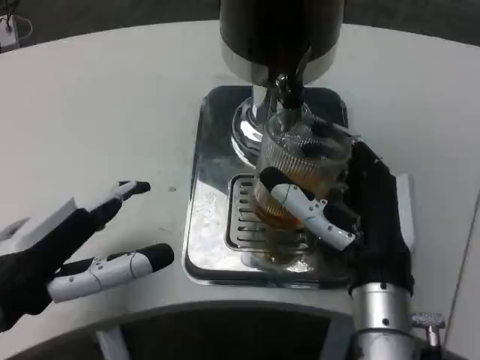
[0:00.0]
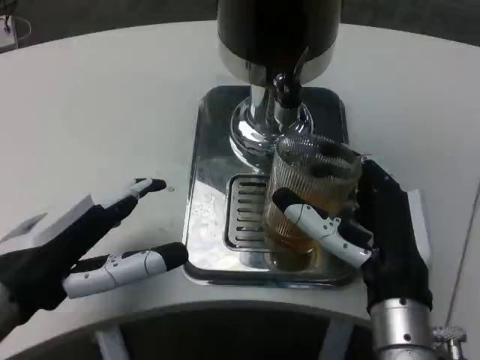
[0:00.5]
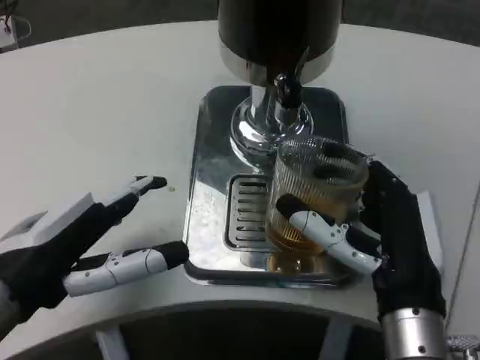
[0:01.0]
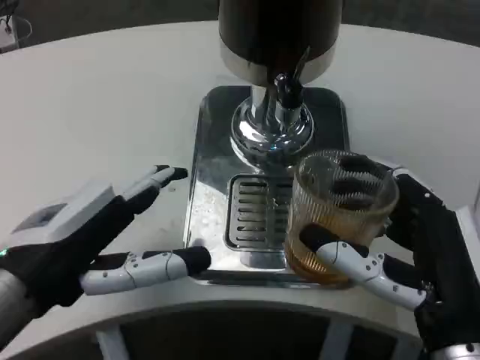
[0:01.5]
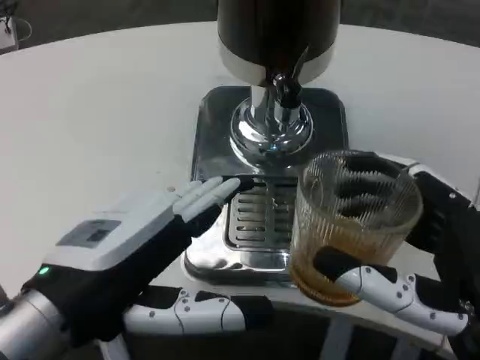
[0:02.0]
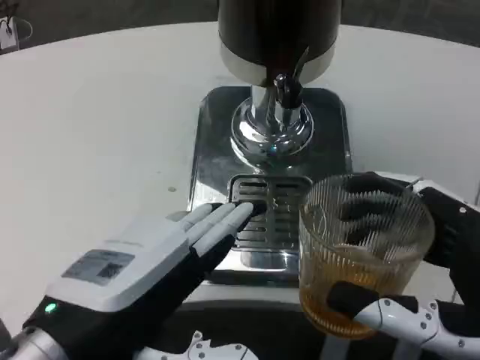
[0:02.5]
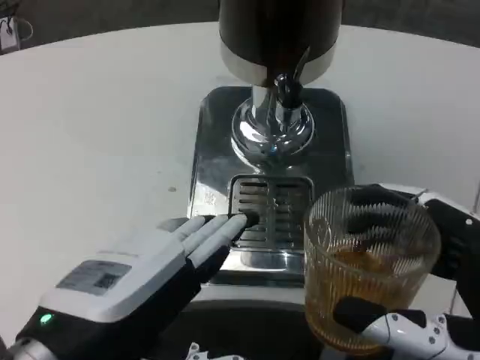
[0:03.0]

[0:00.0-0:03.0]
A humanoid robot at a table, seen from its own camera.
Task of the whole recording: Grasp the cup under the faucet to collect the drink, then remove the cup.
0:00.0 to 0:01.5: The right hand goes some 10 cm backward and to the right.
0:01.5 to 0:03.0: Both hands move backward, roughly 5 cm.

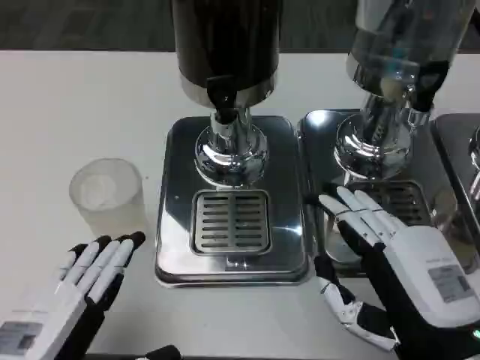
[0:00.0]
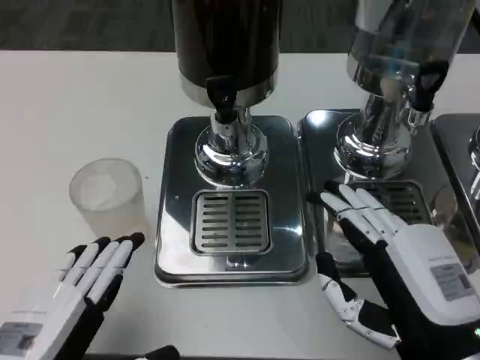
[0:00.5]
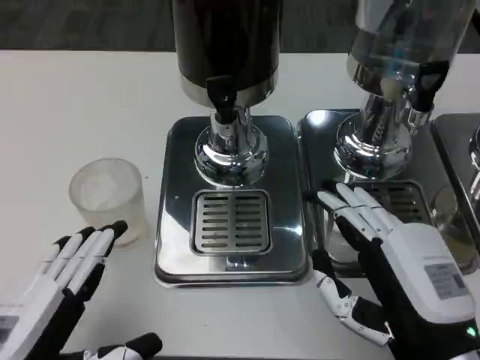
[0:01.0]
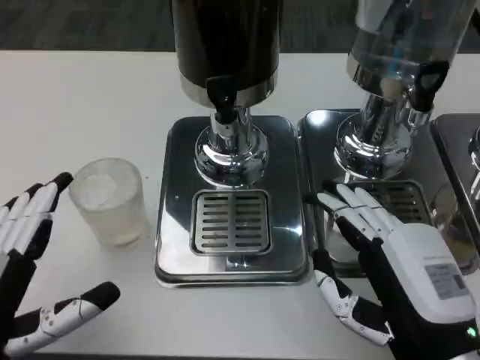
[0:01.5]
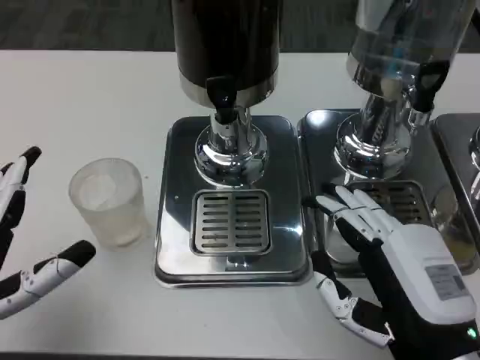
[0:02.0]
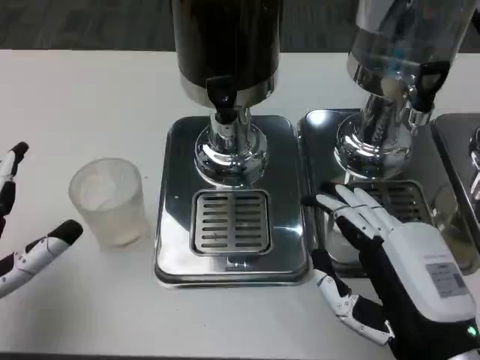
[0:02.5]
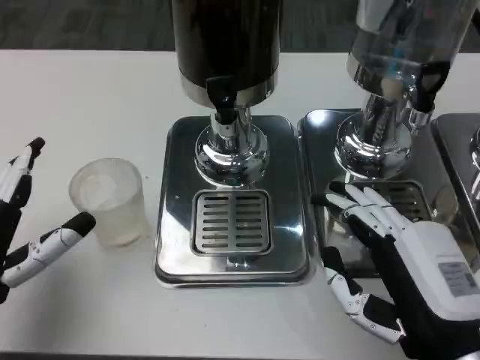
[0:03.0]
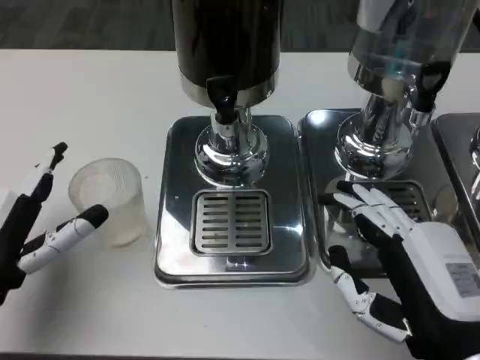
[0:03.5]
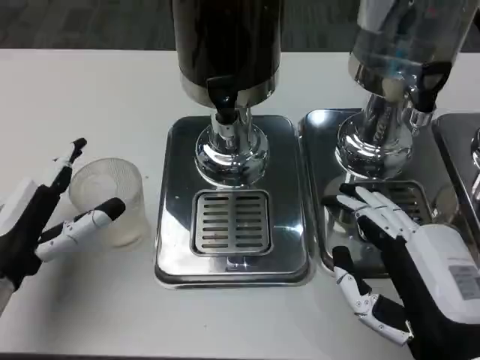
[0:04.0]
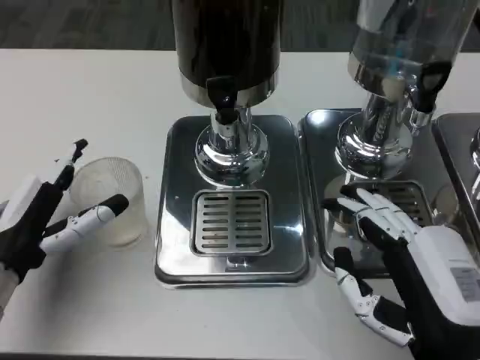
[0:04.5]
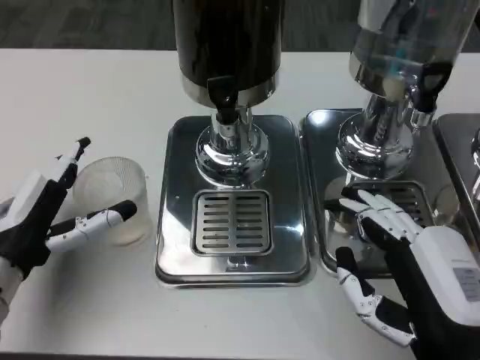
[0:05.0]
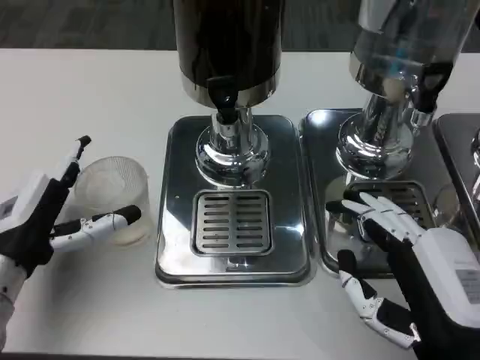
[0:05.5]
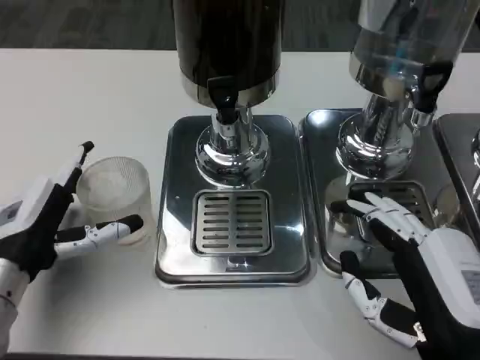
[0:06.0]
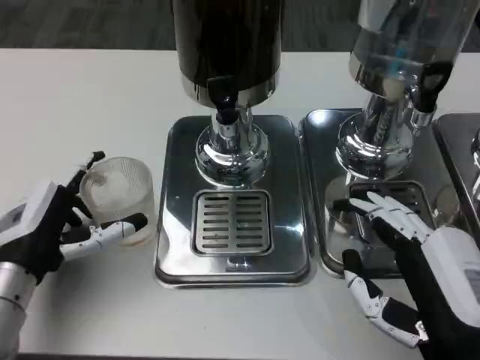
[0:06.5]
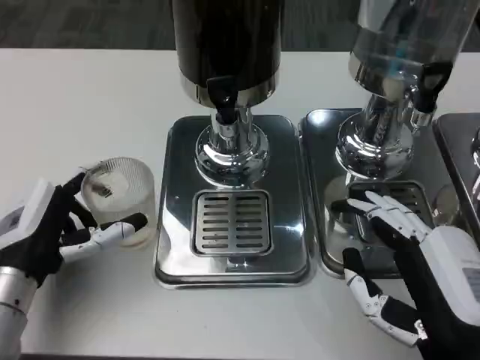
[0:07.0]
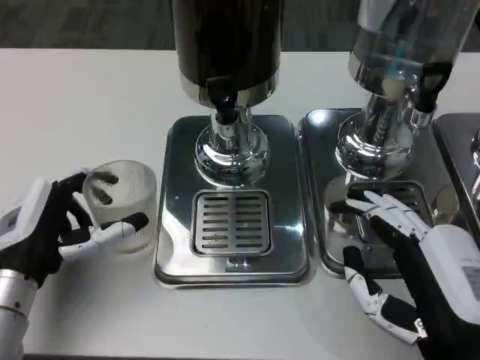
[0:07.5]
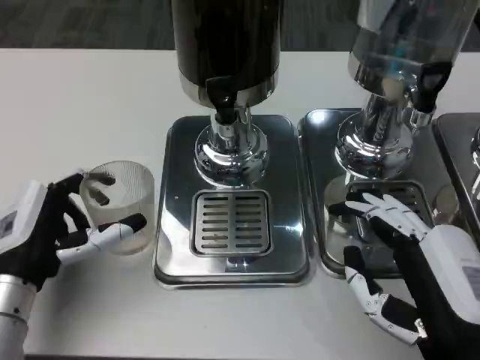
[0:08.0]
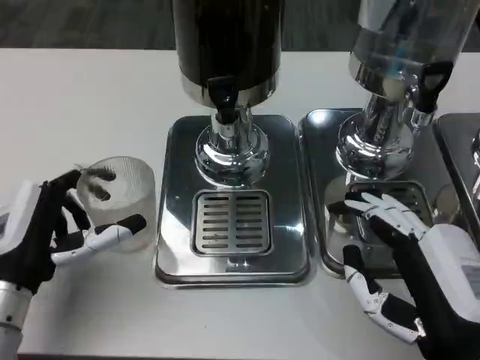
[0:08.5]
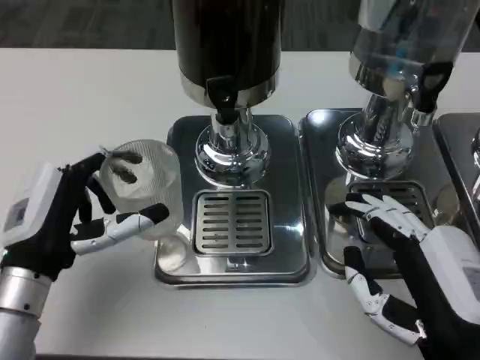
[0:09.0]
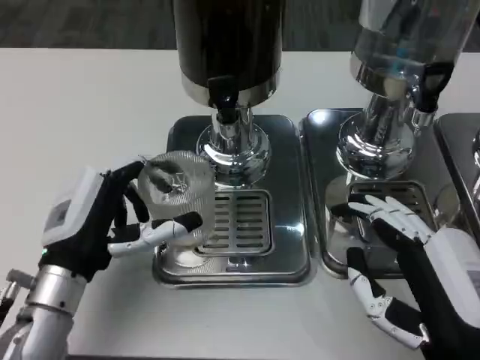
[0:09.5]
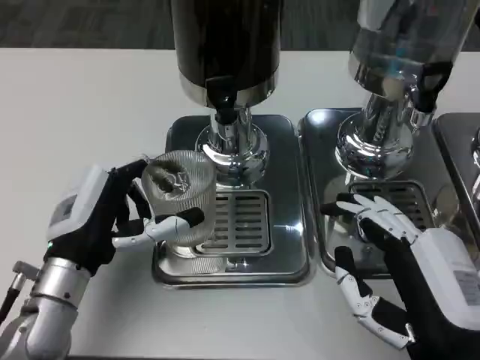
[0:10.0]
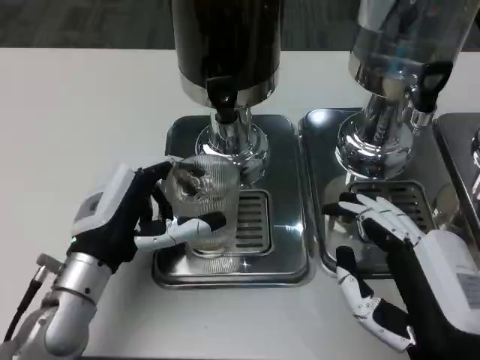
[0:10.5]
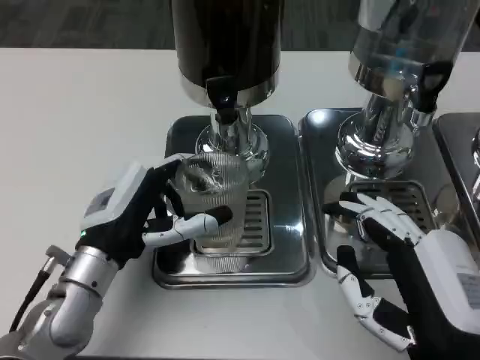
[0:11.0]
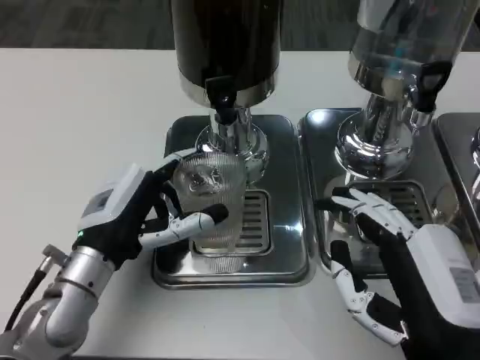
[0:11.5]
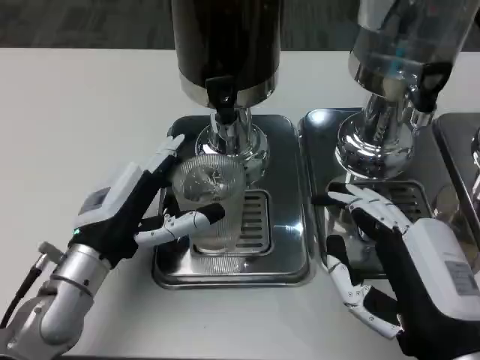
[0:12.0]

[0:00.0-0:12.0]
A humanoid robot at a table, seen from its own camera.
Task of the whole recording: Grasp the cup under the faucet to collect the drink, then remove the cup.
0:00.0 to 0:02.0: The left hand changes place by some 5 cm.
0:02.0 to 0:04.0: The left hand heads forward, covering about 10 cm.
0:04.0 to 0:08.0: The hands stay close to where they were, moving slightly.
0:10.0 to 0:12.0: The hands make only small movements.

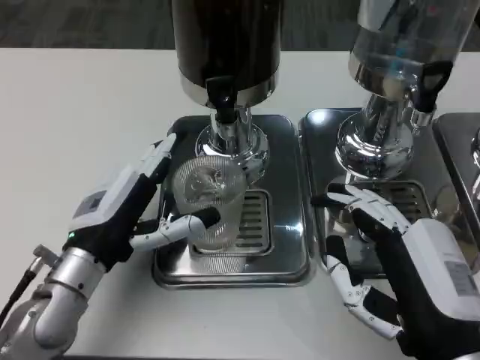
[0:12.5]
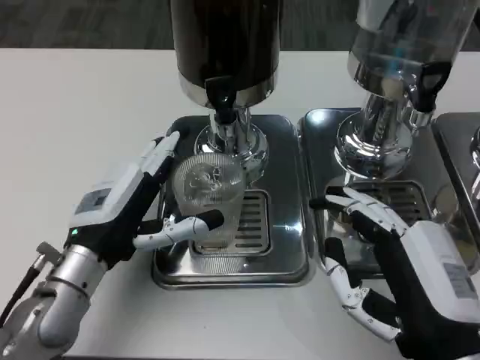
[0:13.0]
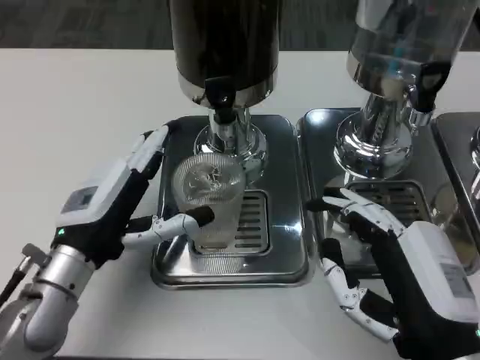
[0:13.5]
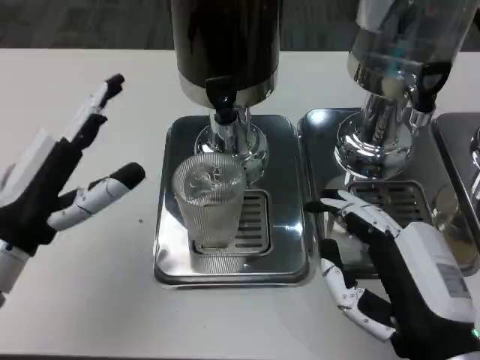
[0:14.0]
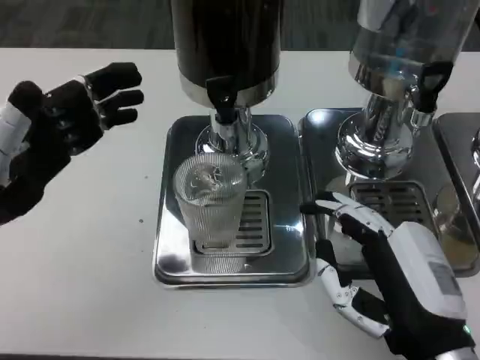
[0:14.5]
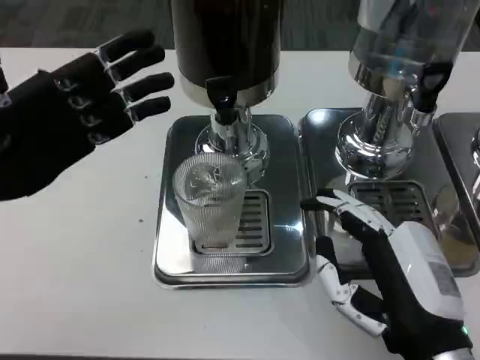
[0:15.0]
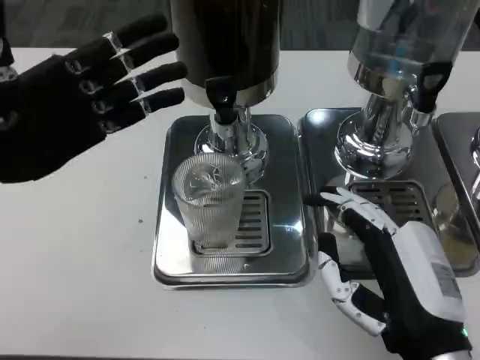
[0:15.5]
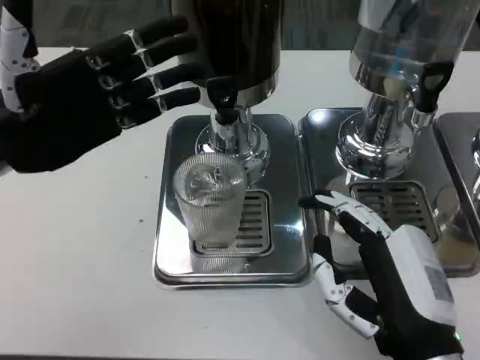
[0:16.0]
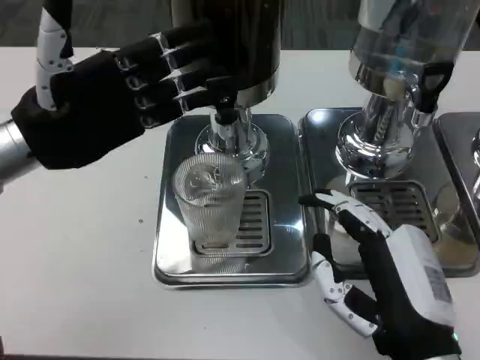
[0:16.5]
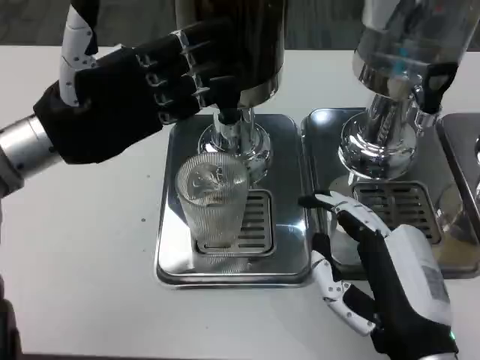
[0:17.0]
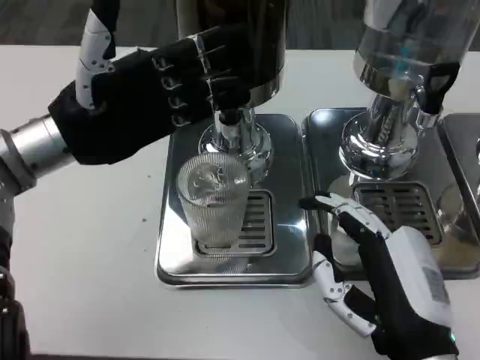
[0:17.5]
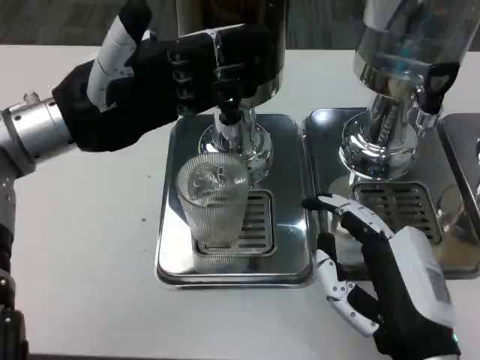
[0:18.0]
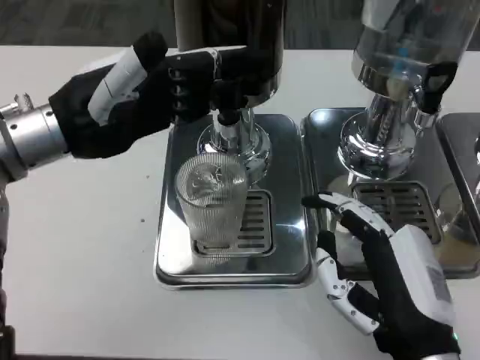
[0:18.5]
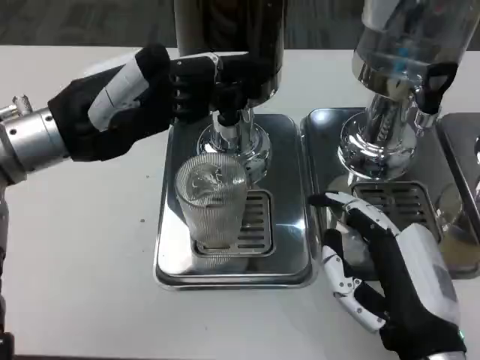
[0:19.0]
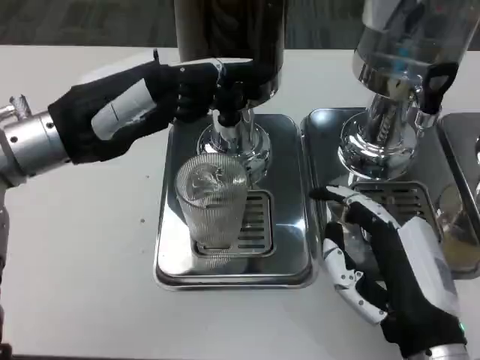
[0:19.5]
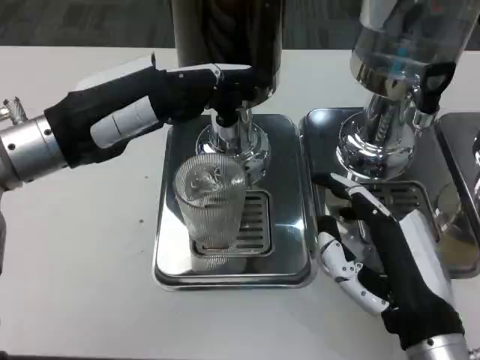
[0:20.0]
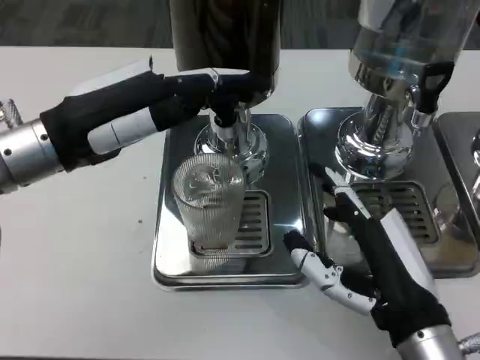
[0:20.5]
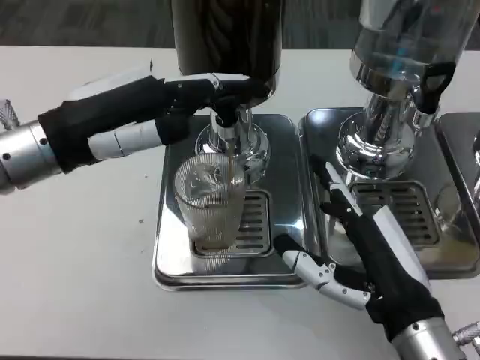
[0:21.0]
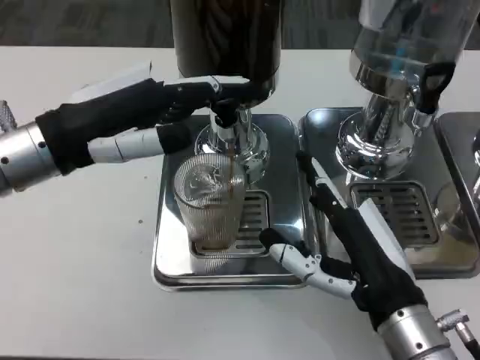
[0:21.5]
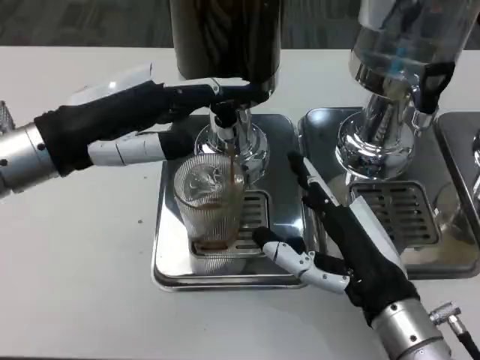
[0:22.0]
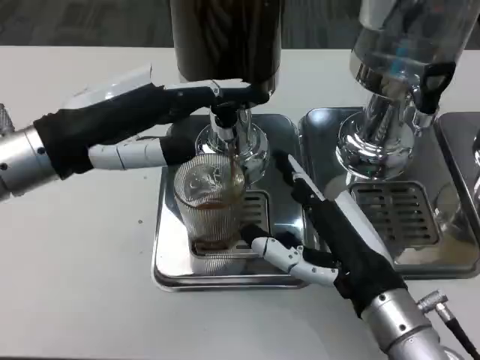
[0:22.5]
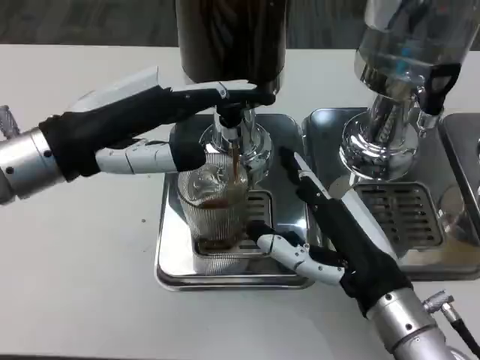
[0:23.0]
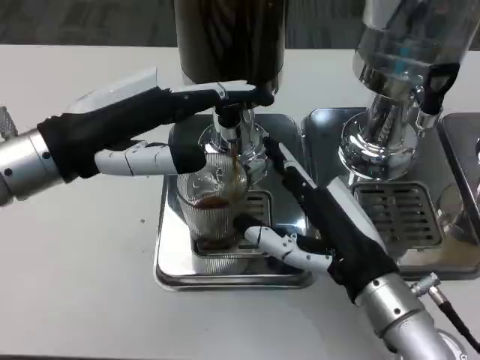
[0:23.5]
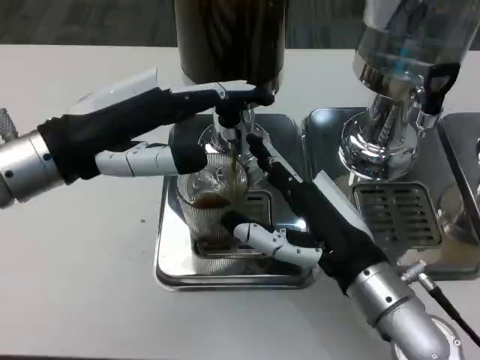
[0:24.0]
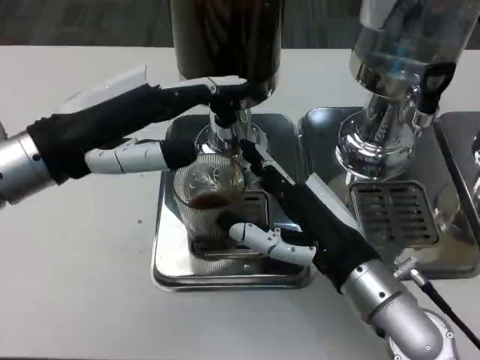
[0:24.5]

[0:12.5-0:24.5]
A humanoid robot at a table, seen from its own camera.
Task of the whole recording: Grasp the cup under the faucet to collect the drink, then remove the cup.
0:12.5 to 0:14.5: The left hand shifts about 15 cm to the left and upward.
0:14.5 to 0:16.5: The left hand goes some 5 cm forward.
0:20.5 to 0:22.5: The hands make only small movements.
0:22.5 to 0:24.5: The hands make only small movements.
